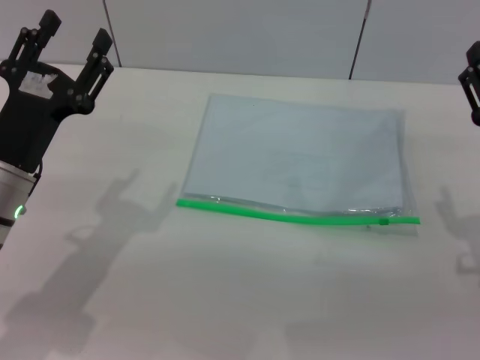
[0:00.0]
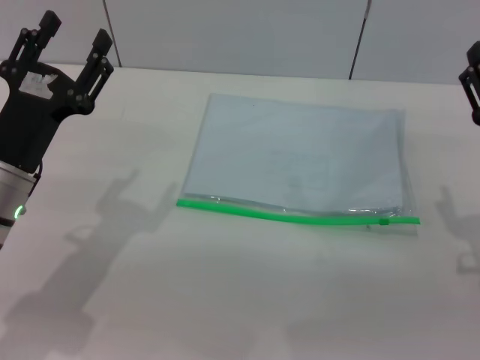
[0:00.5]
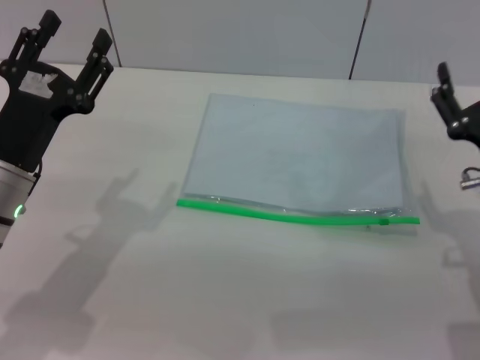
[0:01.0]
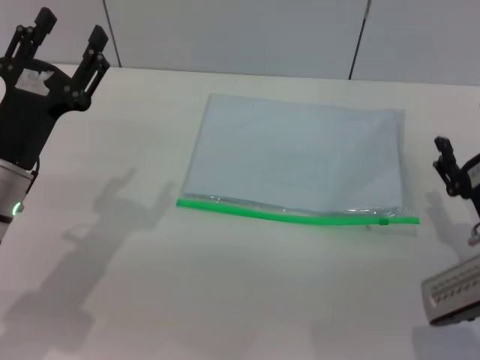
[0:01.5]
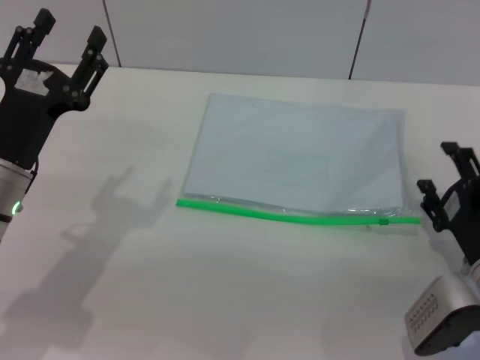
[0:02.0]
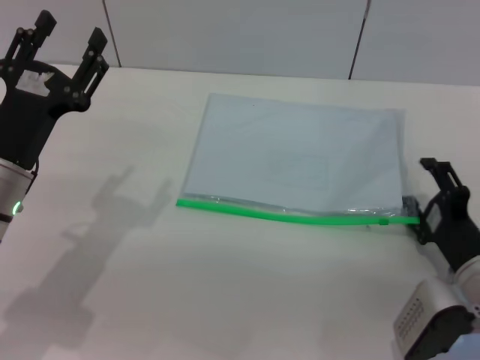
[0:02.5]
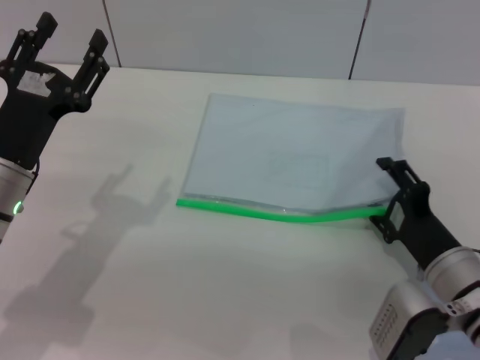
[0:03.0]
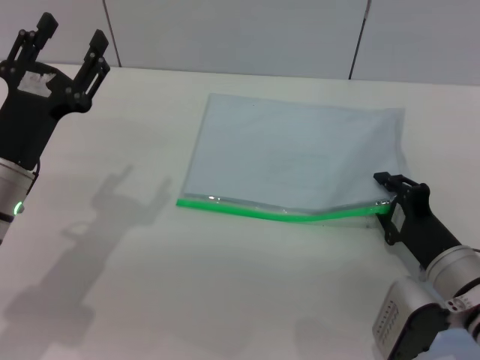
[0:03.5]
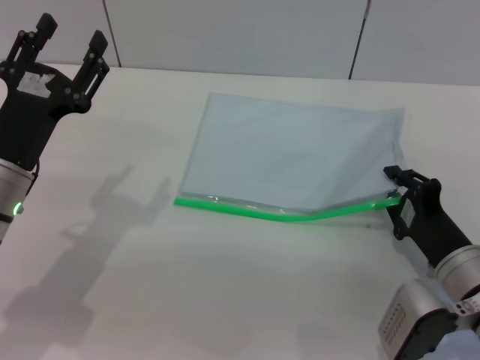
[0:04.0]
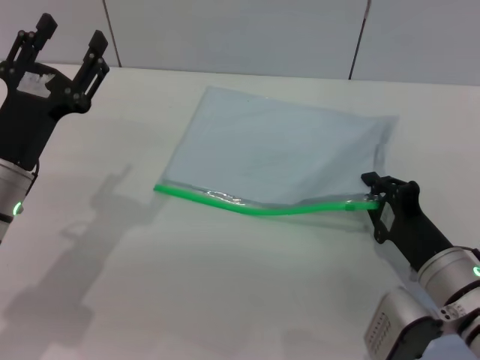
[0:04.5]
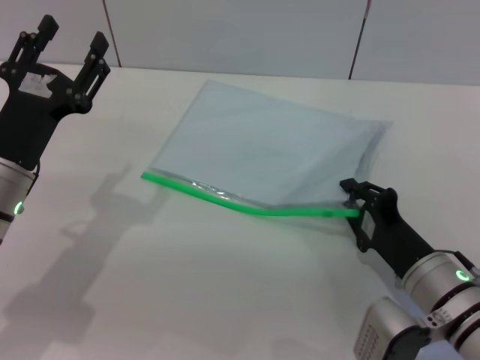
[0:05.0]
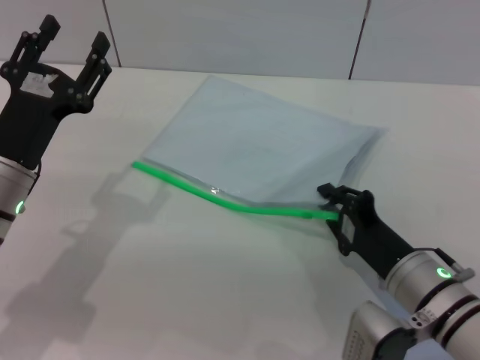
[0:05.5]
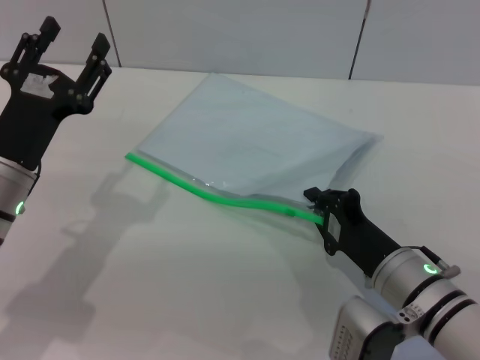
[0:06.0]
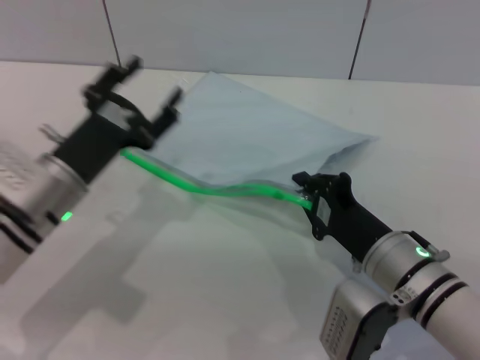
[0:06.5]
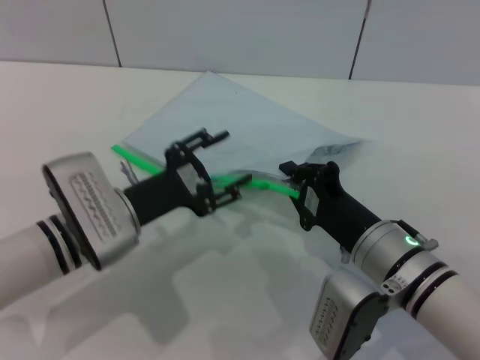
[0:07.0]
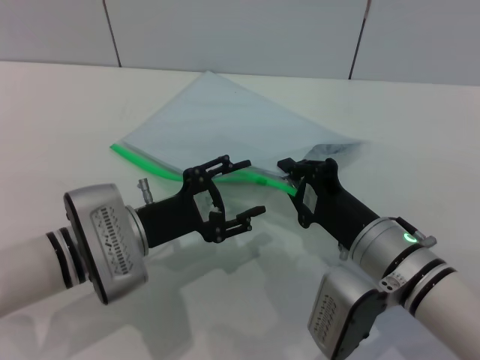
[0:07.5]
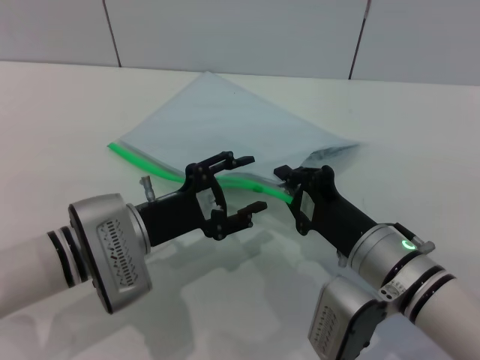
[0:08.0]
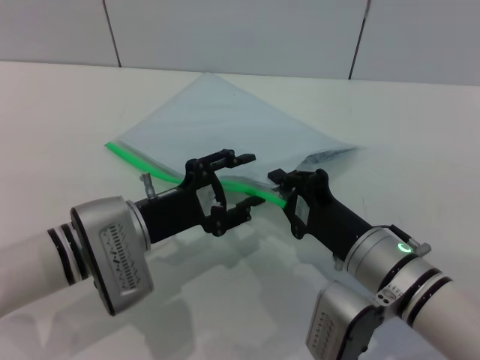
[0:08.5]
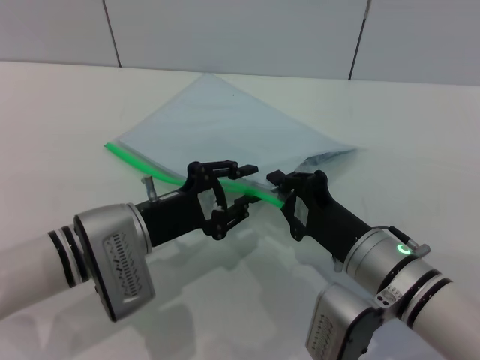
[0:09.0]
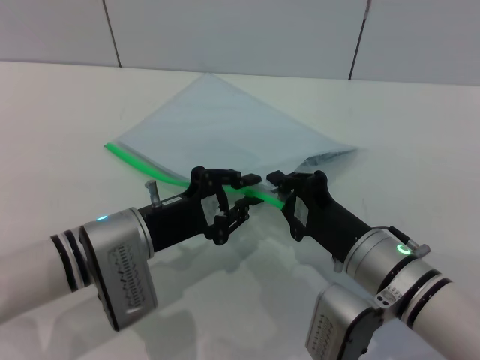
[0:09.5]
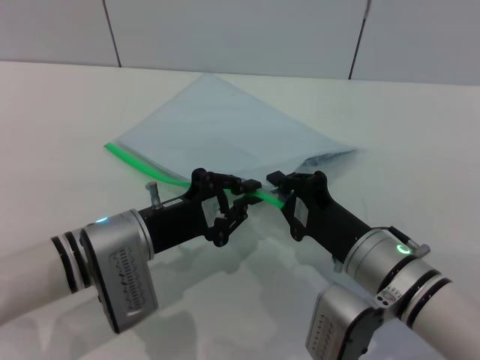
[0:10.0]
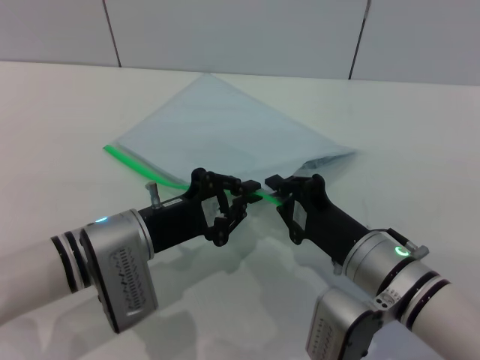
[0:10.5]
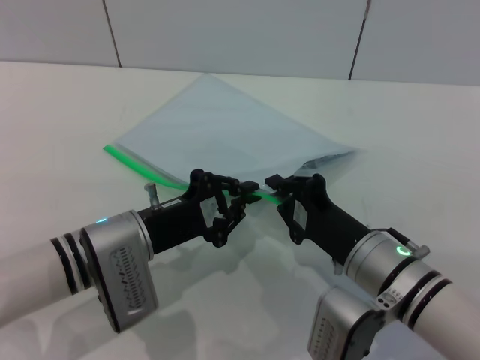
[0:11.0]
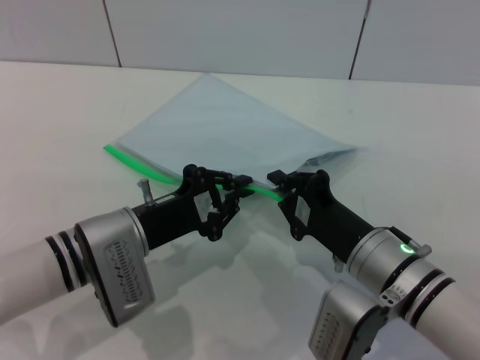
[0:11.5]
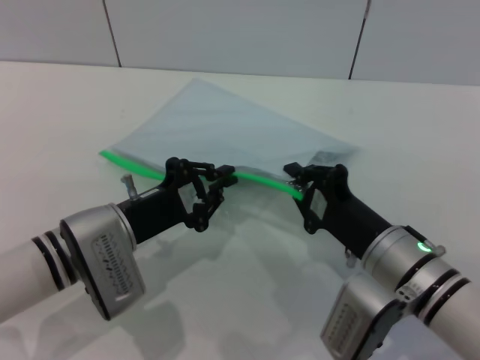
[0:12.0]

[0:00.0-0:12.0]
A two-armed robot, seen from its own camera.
Step, 0:00.0 to 0:06.5: Pick up the transparent plastic bag with the right gripper.
0:00.0 to 0:02.0: The right gripper heads downward, covering roughly 5 cm.
0:02.0 to 0:04.0: The right gripper closes its fingers.
0:04.0 to 0:06.0: The right gripper is displaced to the left by some 5 cm.
0:06.0 to 0:08.0: The left gripper moves to the right, about 10 cm.
0:08.0 to 0:10.0: The left gripper closes up.
0:10.0 to 0:12.0: The grippers make only small movements.

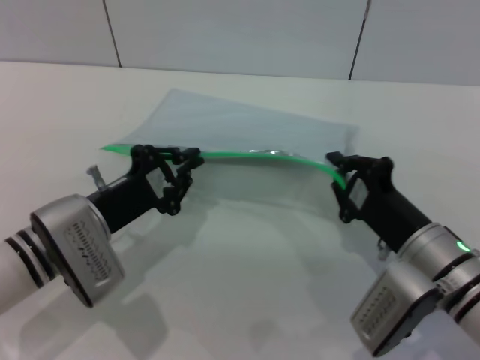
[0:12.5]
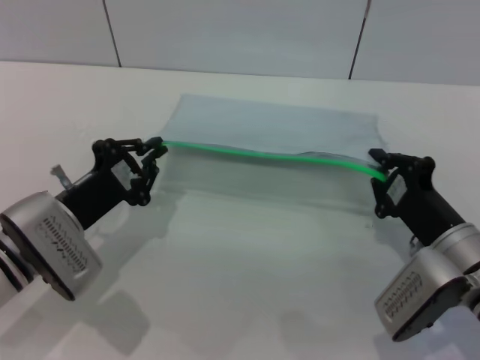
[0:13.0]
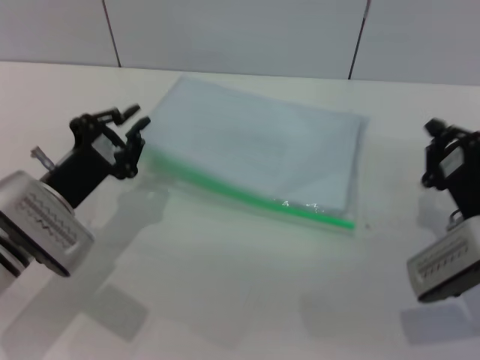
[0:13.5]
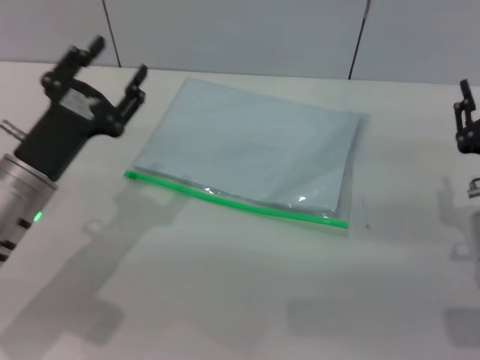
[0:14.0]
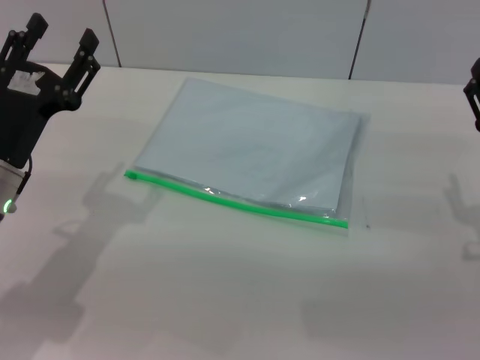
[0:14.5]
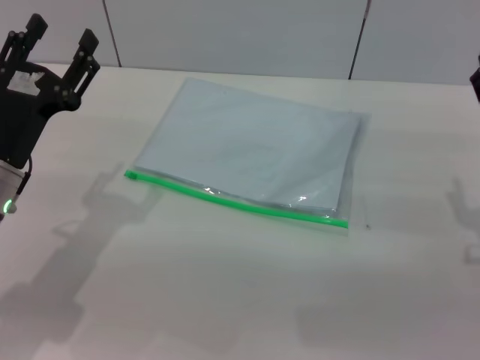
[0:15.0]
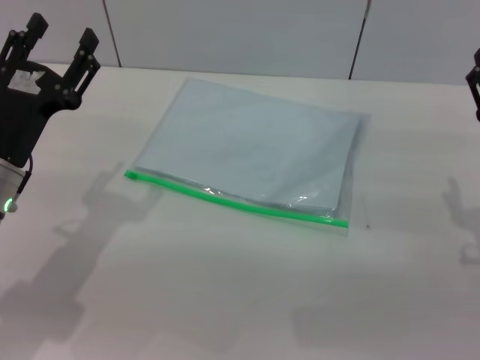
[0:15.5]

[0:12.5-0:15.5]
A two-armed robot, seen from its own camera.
0:12.5 to 0:14.0: The right gripper heads to the right, covering about 5 cm. Meanwhile the left gripper opens its fingers.
0:14.0 to 0:15.5: The right gripper opens; the left gripper opens its fingers.

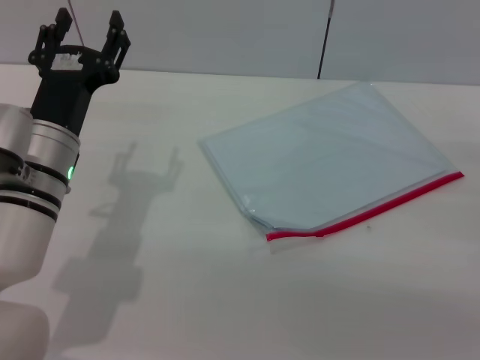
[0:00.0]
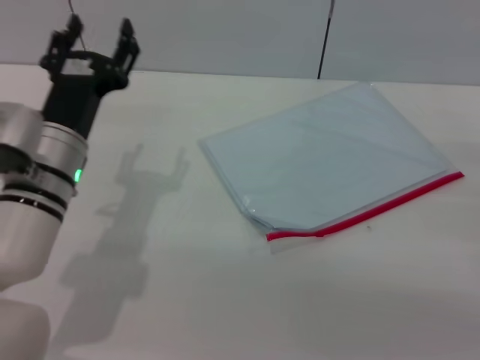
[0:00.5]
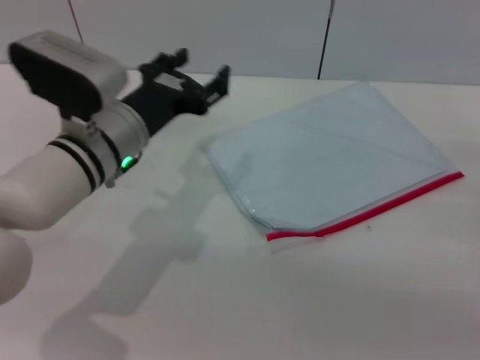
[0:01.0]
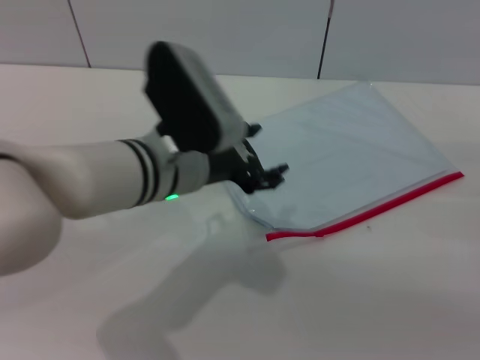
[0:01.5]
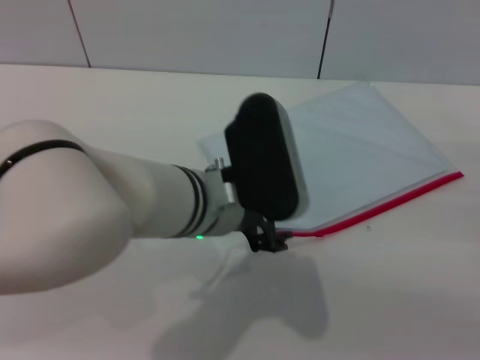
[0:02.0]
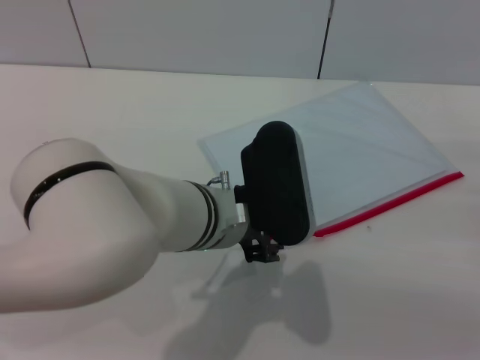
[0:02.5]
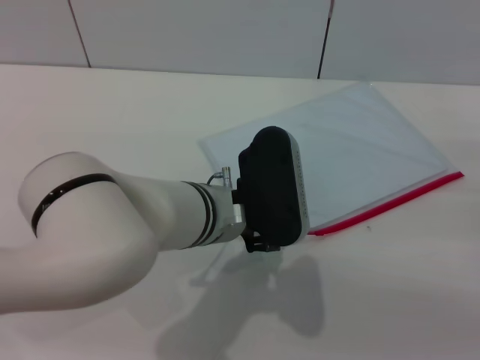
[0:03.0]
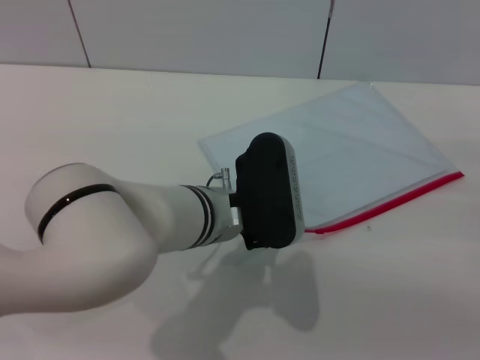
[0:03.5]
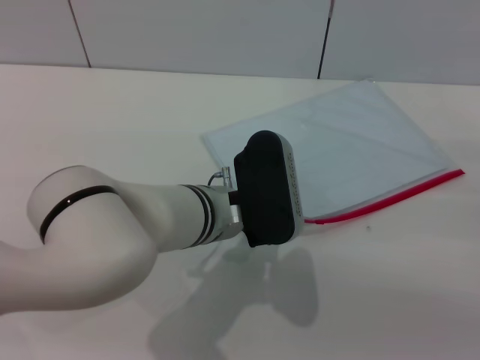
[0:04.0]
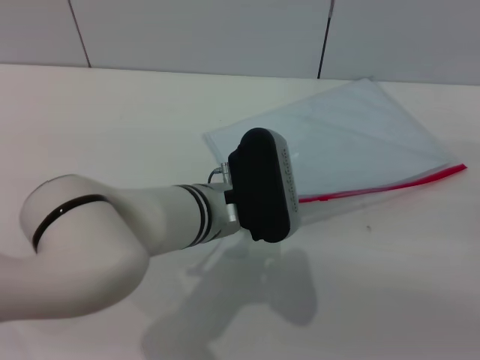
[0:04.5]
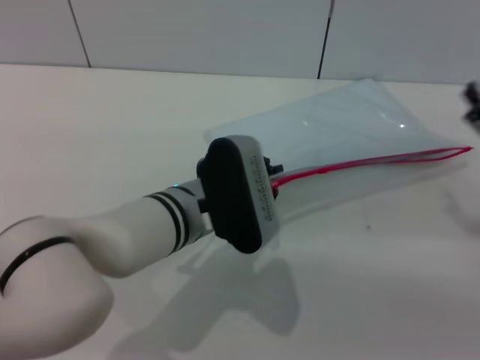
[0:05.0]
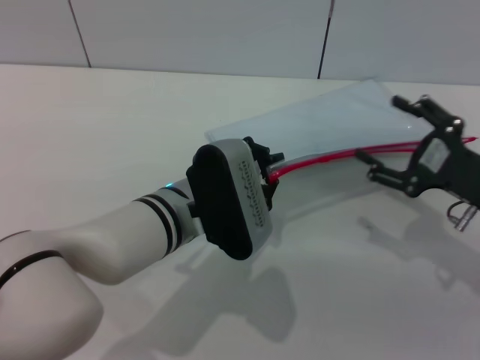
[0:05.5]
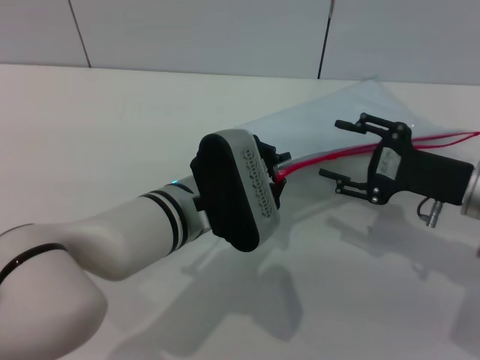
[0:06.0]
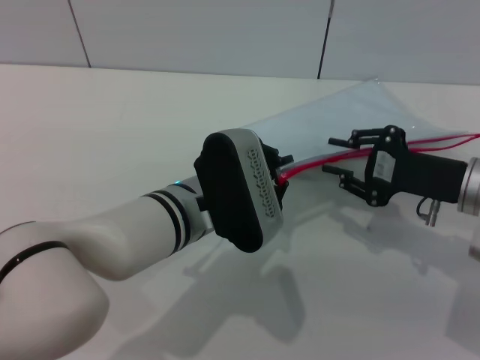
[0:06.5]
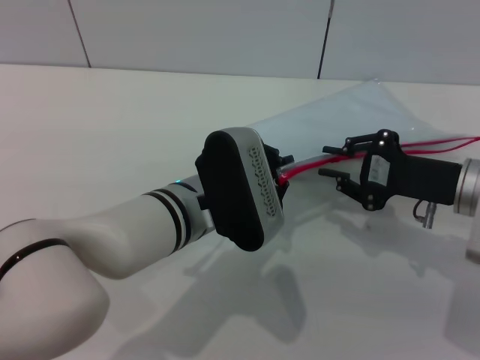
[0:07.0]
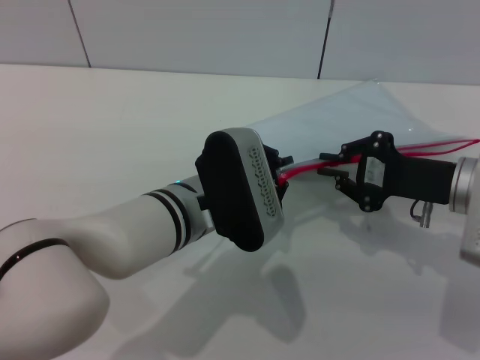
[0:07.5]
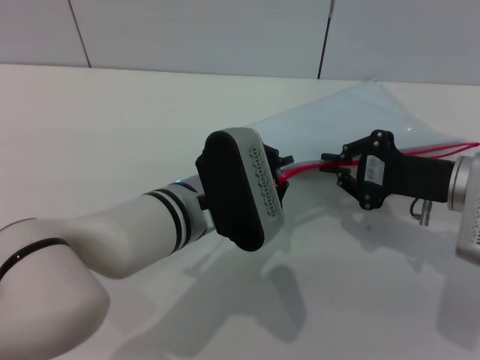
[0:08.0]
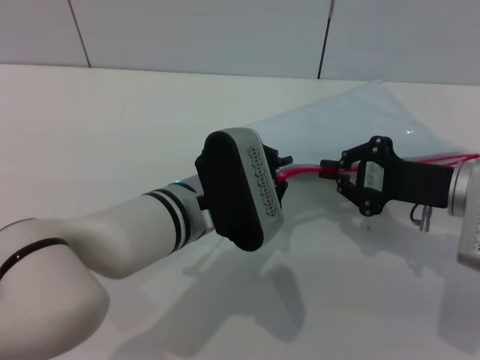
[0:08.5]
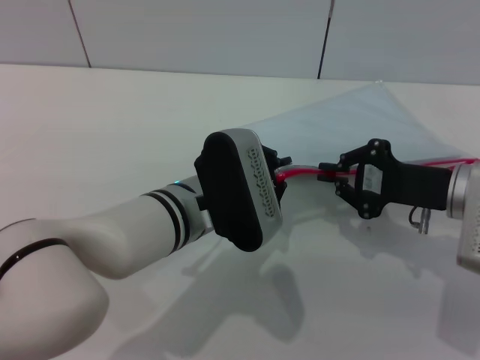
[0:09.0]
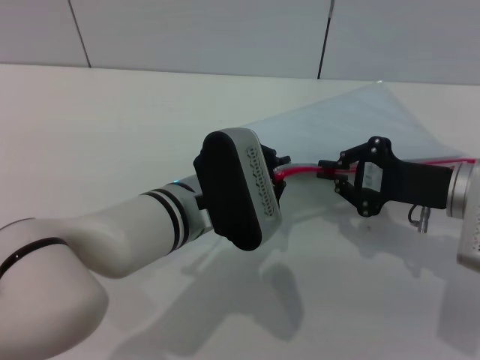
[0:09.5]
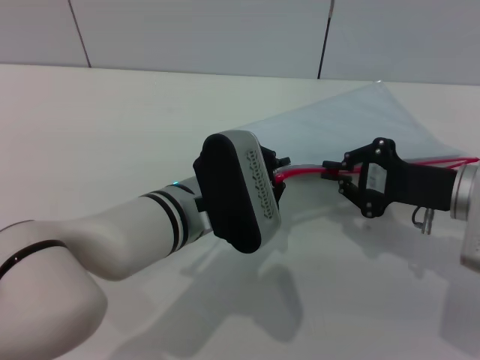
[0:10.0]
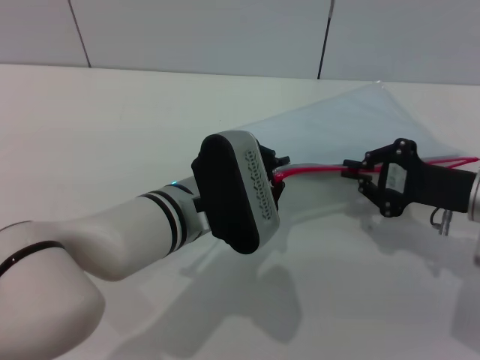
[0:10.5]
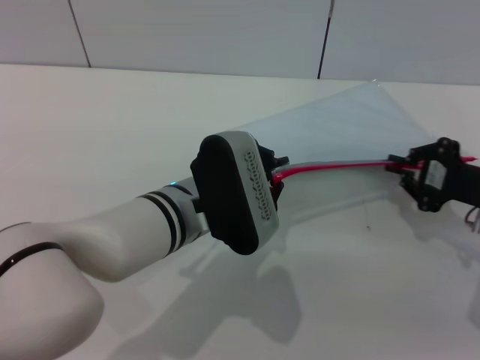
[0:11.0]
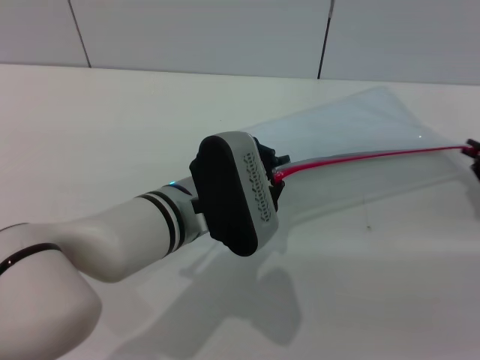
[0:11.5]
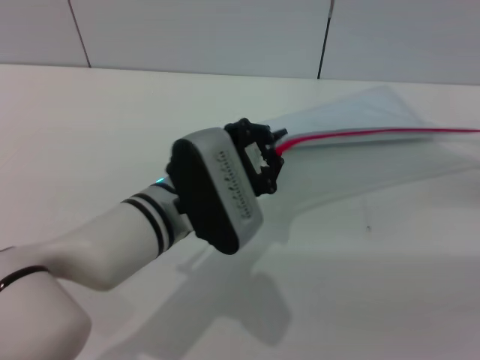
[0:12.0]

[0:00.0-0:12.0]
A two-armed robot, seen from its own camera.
Step, 0:00.0 to 0:04.5: Pick up the transparent plastic bag with the left gripper.
0:00.0 to 0:02.0: The left gripper shifts approximately 15 cm to the right.
0:02.0 to 0:04.0: The left gripper shifts about 5 cm downward, and closes its fingers.
0:04.0 to 0:06.0: The right gripper shifts roughly 10 cm to the left and forward; the left gripper closes.
0:06.0 to 0:08.0: The right gripper closes.
0:08.0 to 0:10.0: The two grippers keep their place.
0:10.0 to 0:12.0: The right gripper shifts some 15 cm to the right.
